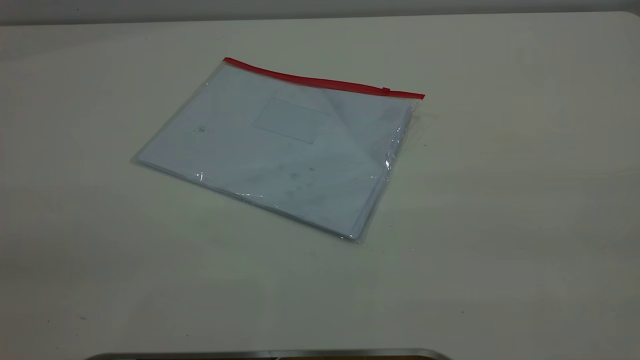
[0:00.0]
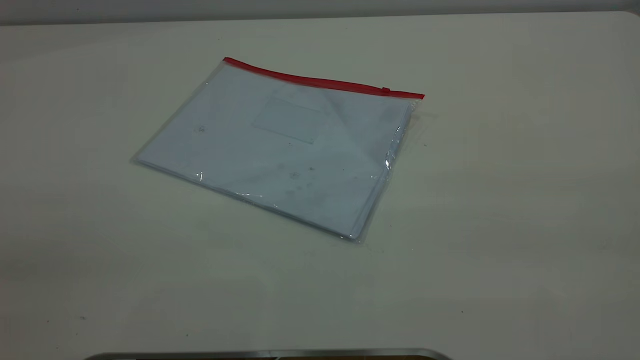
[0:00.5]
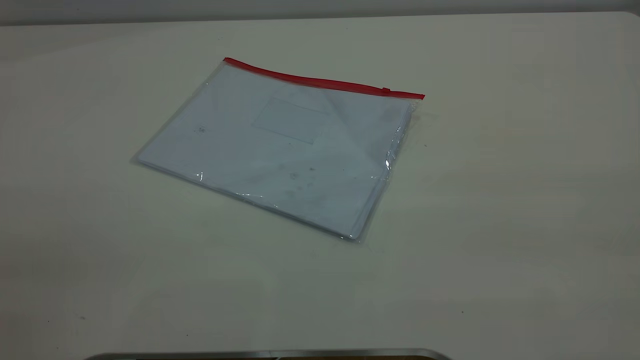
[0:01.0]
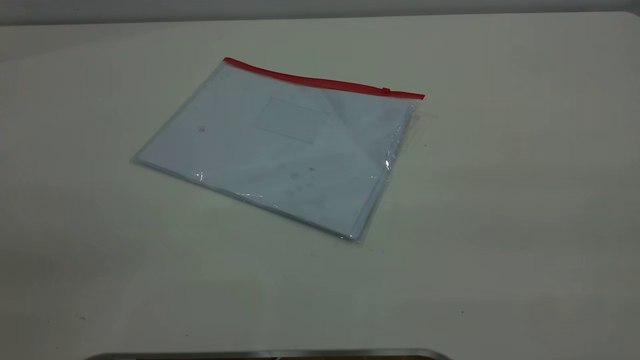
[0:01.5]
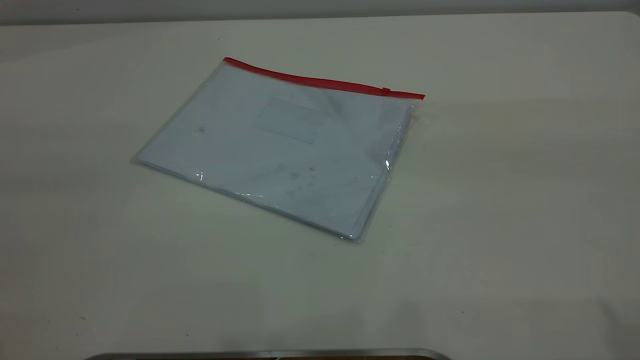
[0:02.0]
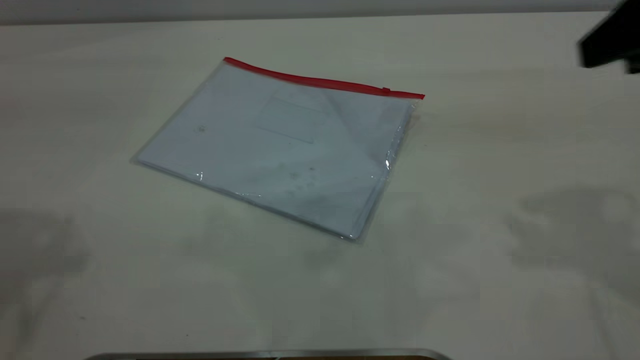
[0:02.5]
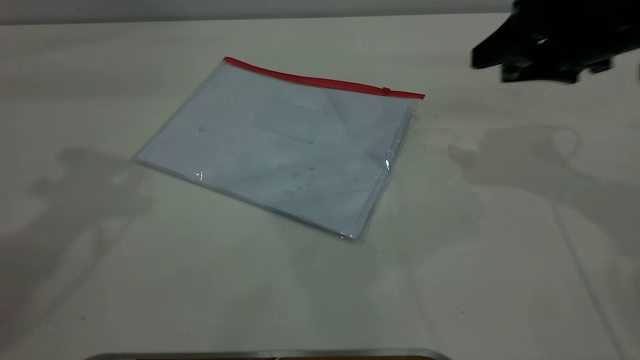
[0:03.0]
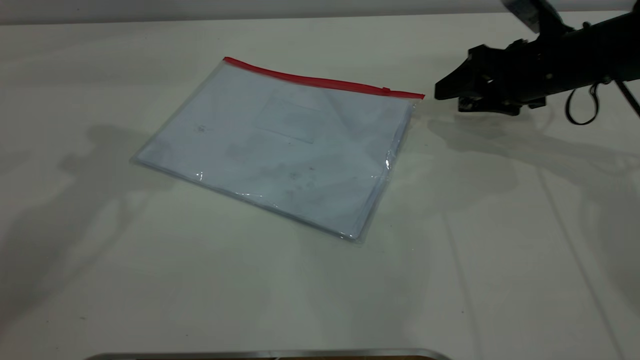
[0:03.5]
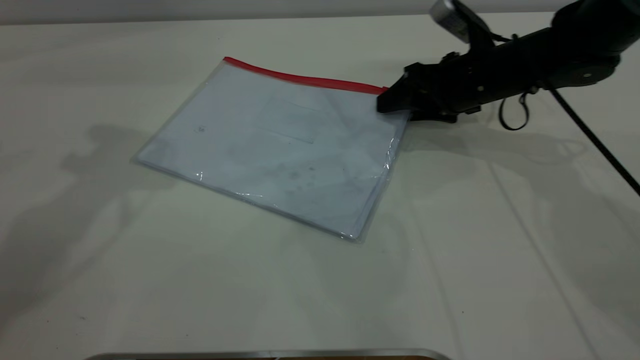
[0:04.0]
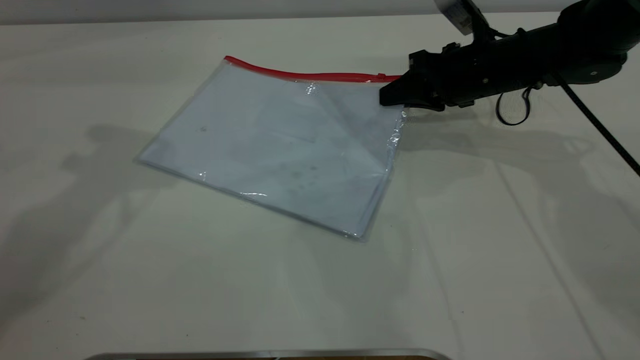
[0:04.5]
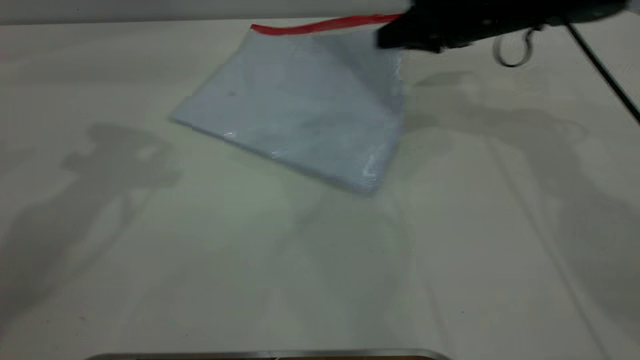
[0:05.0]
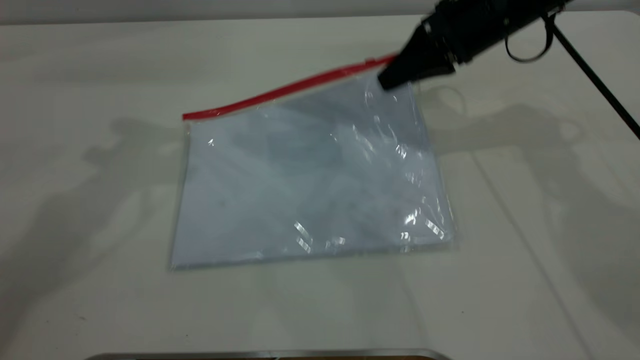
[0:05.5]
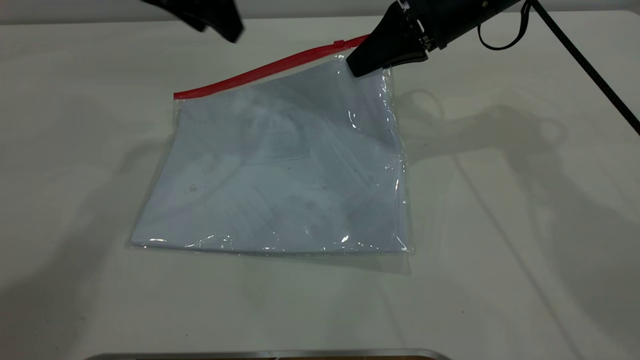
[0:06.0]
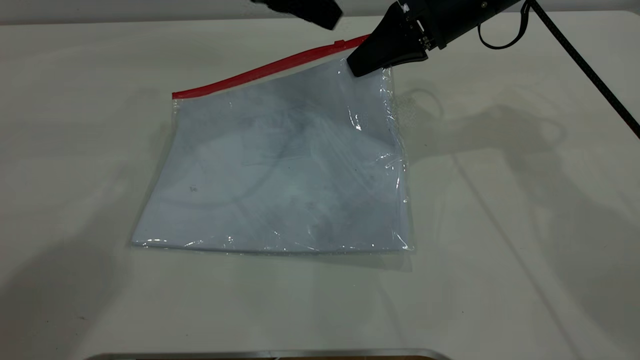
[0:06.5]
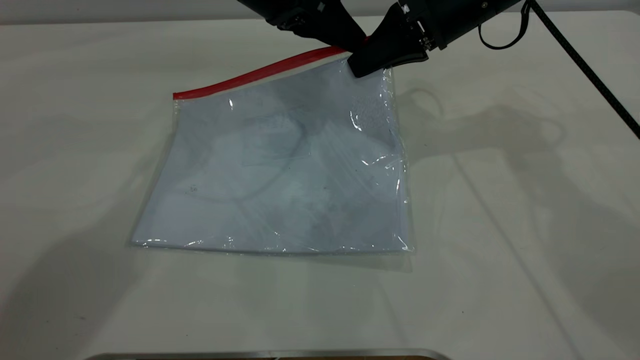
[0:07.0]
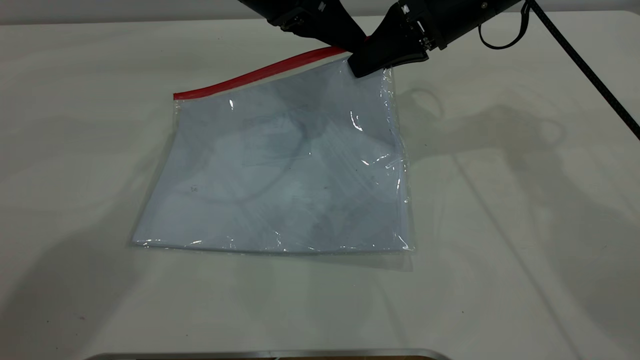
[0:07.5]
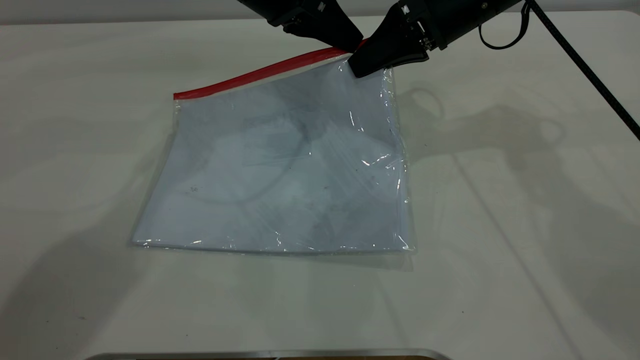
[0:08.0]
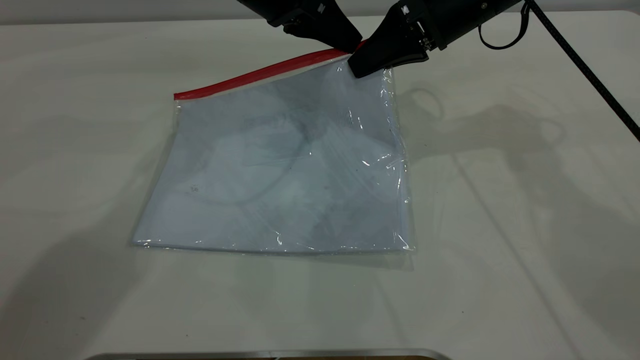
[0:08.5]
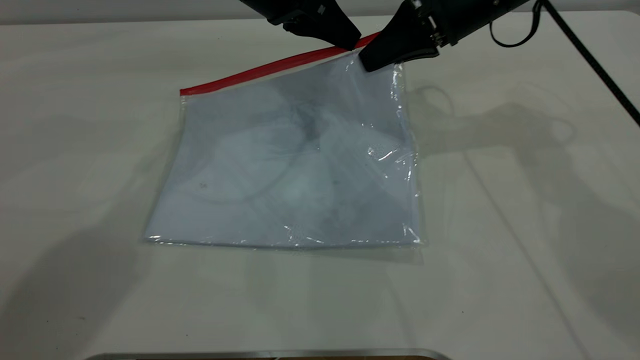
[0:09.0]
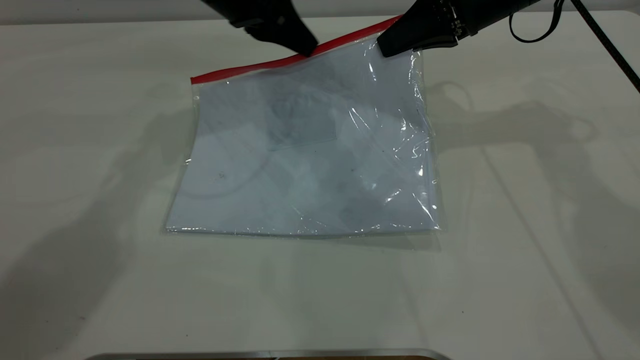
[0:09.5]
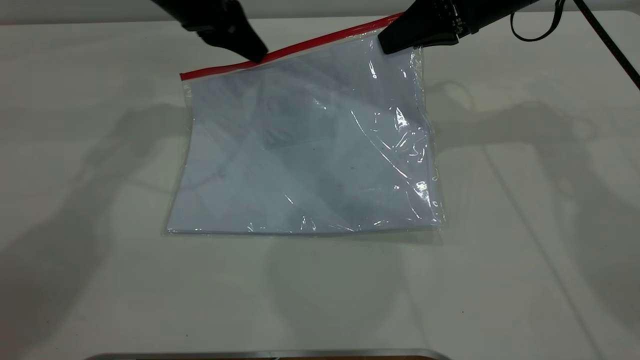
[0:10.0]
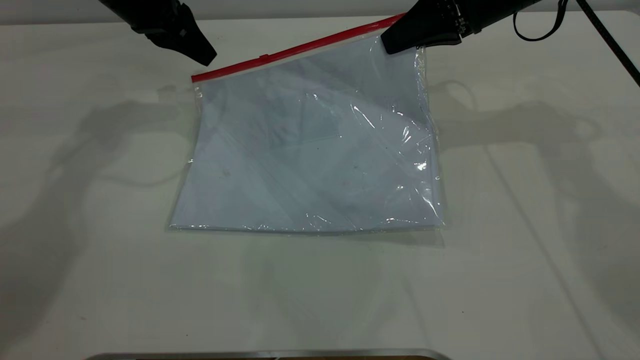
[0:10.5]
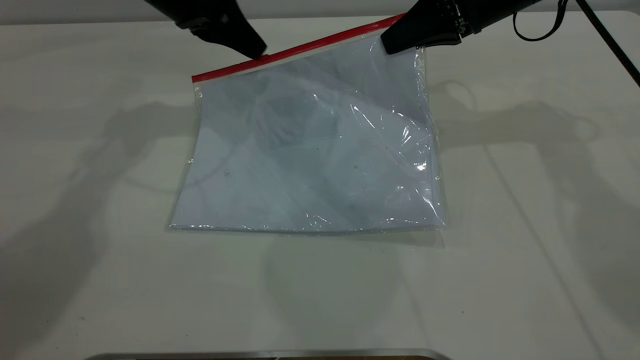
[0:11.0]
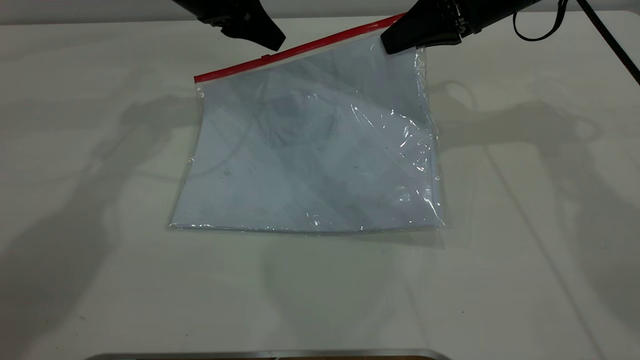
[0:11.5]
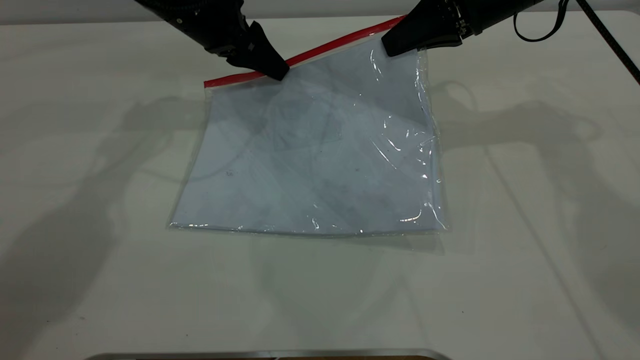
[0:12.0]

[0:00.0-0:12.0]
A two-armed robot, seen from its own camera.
Step, 0:00.0 to 0:05.5: Pick up the transparent plastic bag with the right gripper.
0:02.0 to 0:04.0: The right gripper is displaced forward and downward by some 40 cm; the left gripper moves forward, approximately 25 cm.
0:04.0 to 0:06.0: The right gripper goes about 10 cm upward, and closes up; the left gripper moves to the right, downward and forward, about 15 cm.
0:06.0 to 0:08.0: The left gripper is displaced to the right and downward by roughly 10 cm, and closes.
0:08.0 to 0:10.0: The left gripper travels to the left by about 10 cm.
0:10.0 to 0:12.0: The left gripper opens.

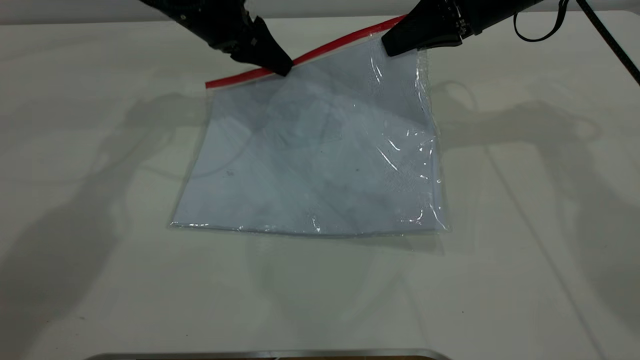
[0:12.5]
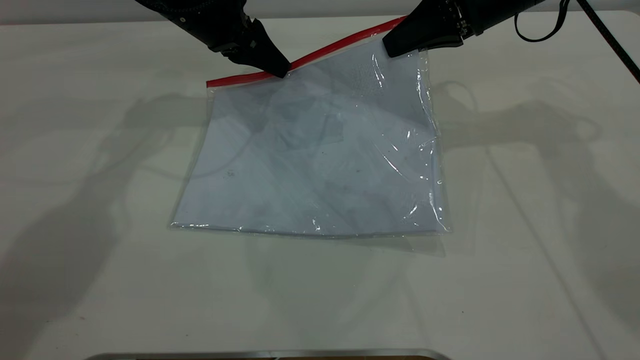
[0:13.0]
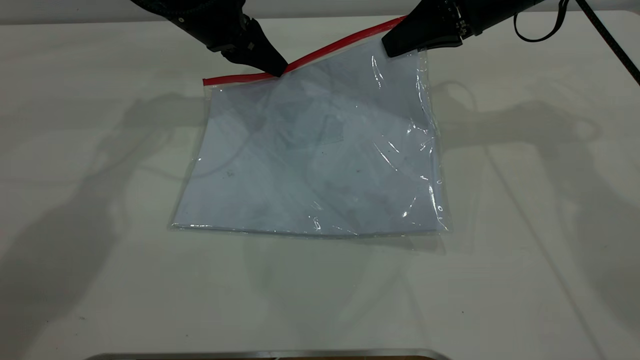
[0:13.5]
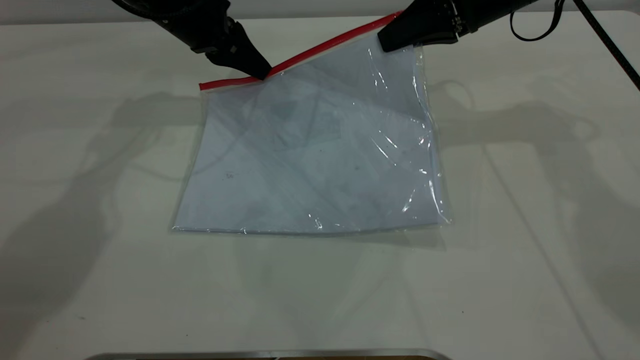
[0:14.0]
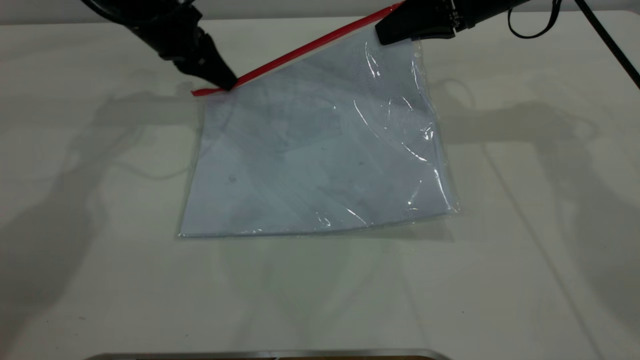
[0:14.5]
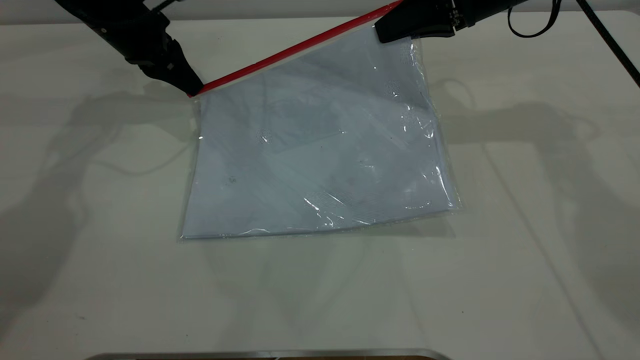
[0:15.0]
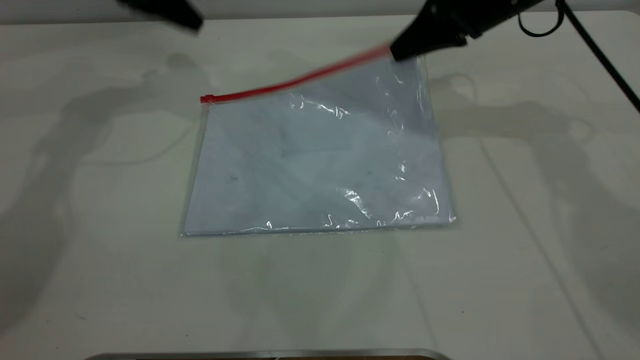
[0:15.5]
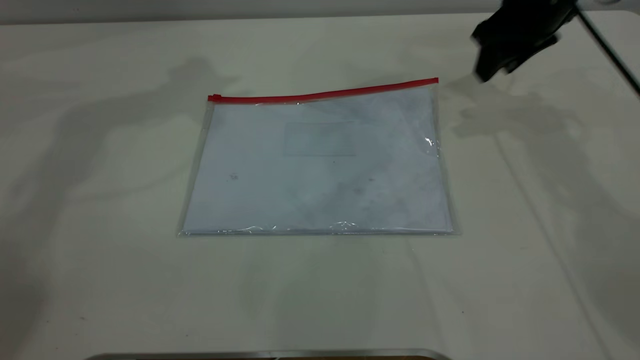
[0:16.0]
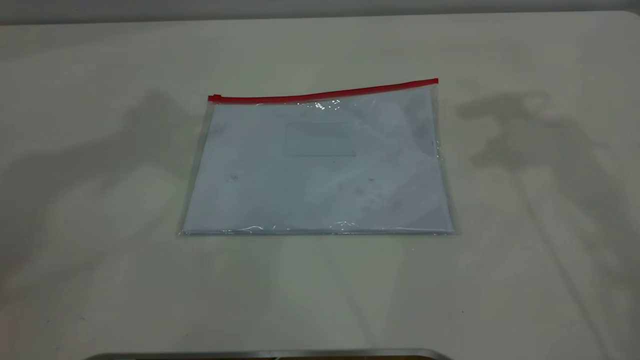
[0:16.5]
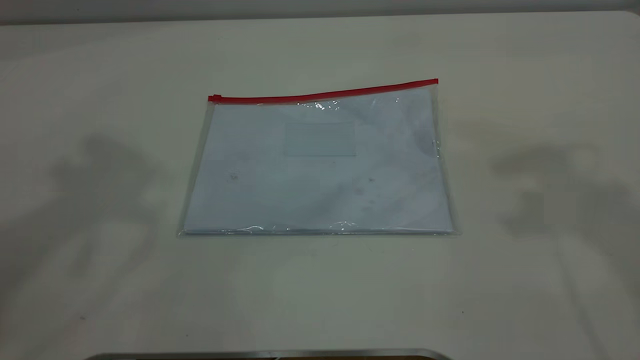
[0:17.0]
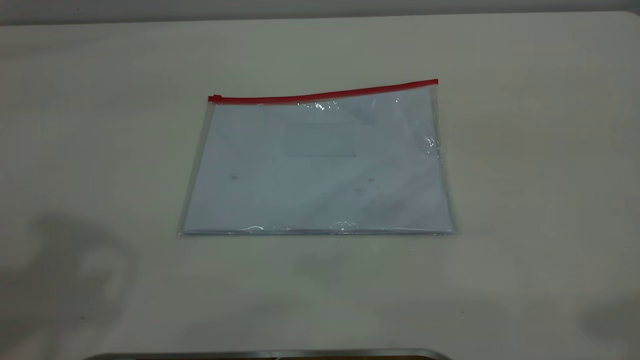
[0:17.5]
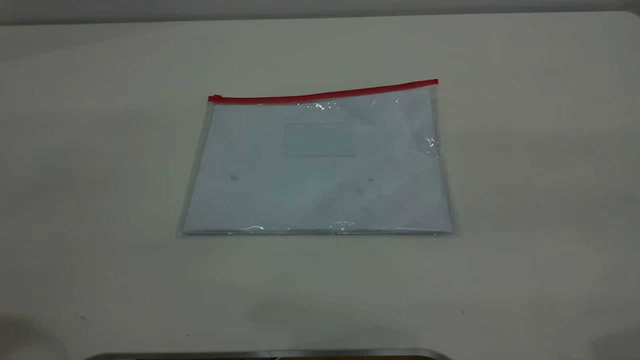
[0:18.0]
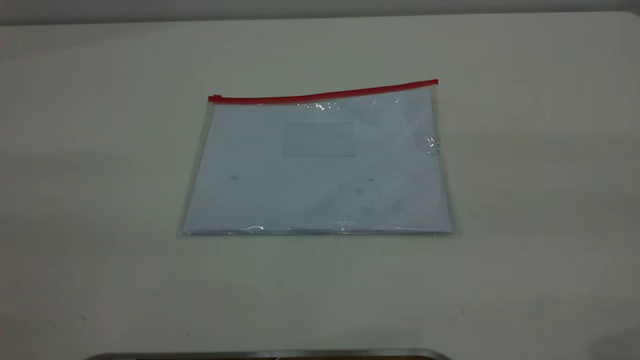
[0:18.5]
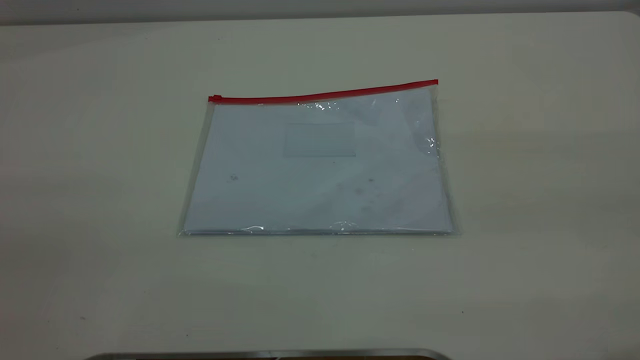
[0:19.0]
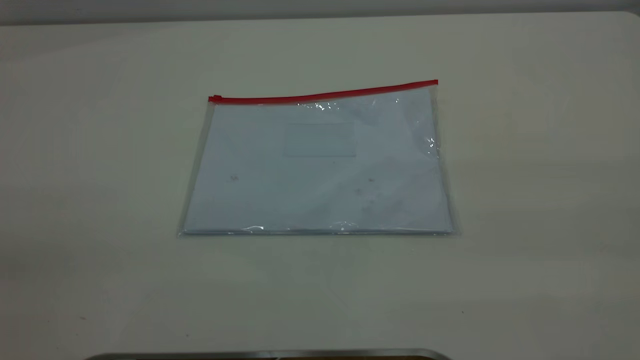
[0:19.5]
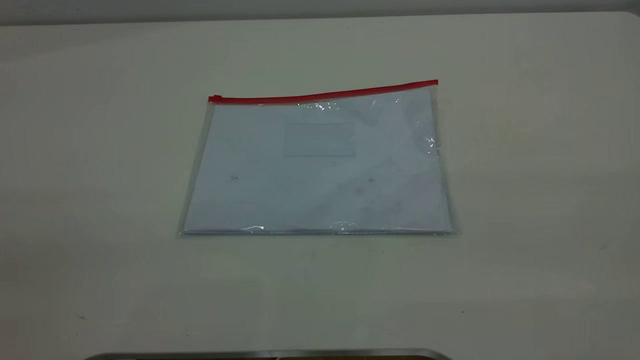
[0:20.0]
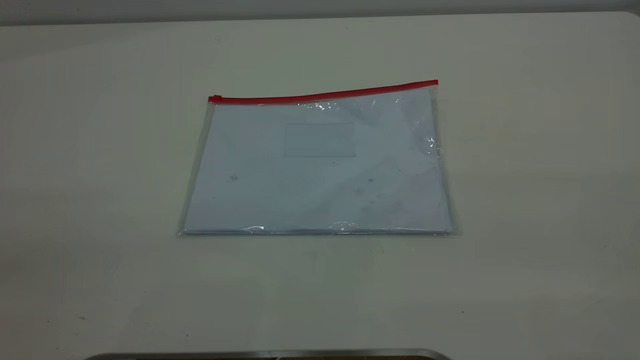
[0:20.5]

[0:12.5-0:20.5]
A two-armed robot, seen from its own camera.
Step, 0:12.5 to 0:15.0: Pulling up the zipper on the transparent plastic bag with the left gripper to close it.
Step, 0:15.5 to 0:16.5: Place the transparent plastic bag.
0:12.5 to 0:14.5: The left gripper is displaced to the left by roughly 5 cm, and closes its fingers.
0:14.5 to 0:16.5: The left gripper heads upward, covering roughly 40 cm, and opens up. The right gripper travels upward by roughly 20 cm, and opens its fingers.
